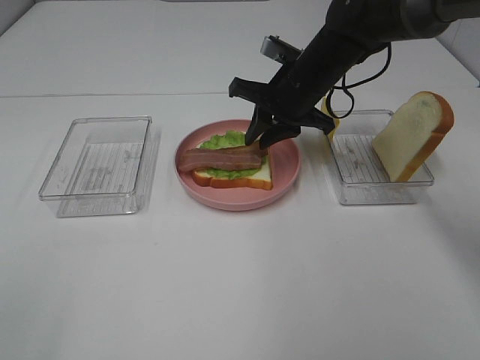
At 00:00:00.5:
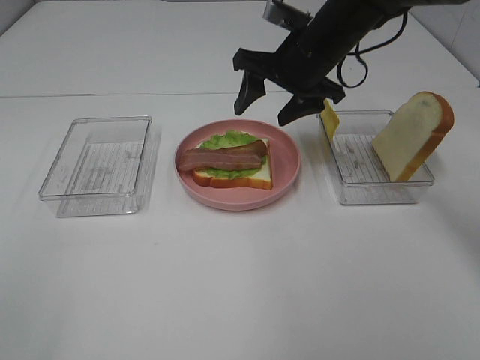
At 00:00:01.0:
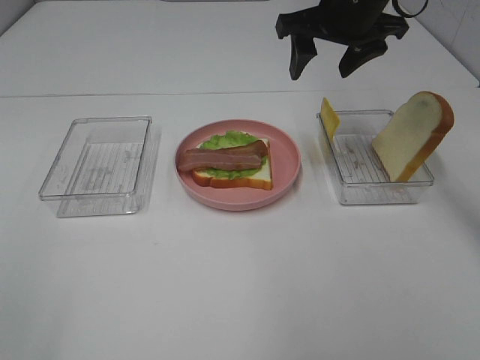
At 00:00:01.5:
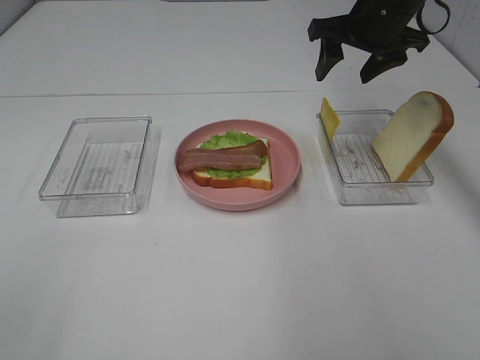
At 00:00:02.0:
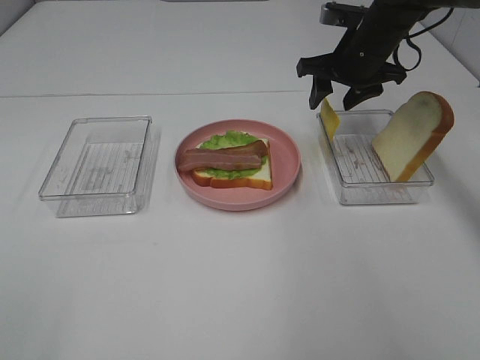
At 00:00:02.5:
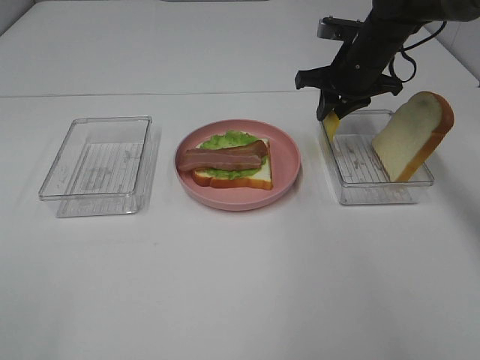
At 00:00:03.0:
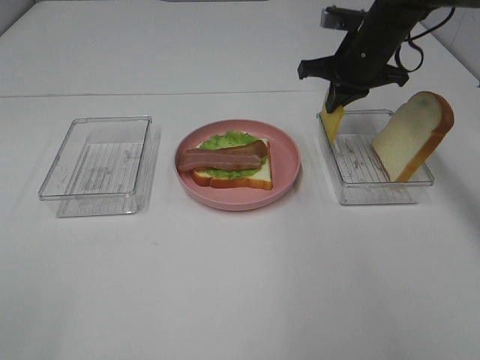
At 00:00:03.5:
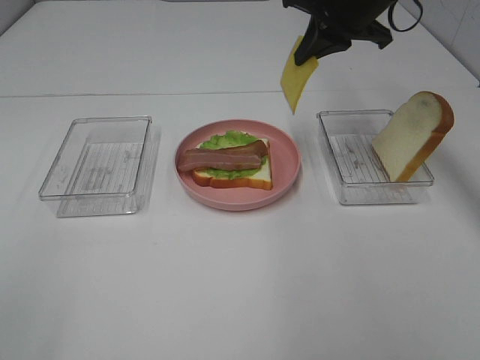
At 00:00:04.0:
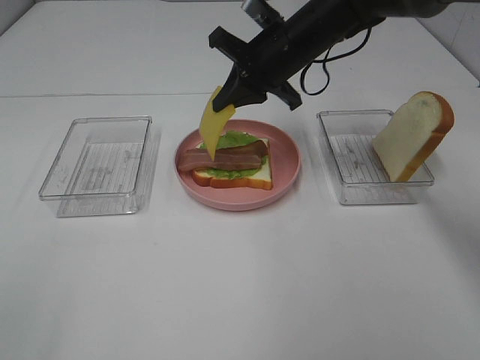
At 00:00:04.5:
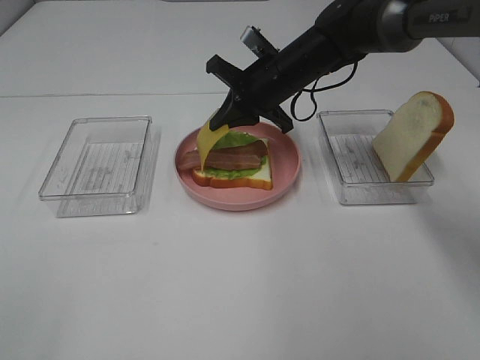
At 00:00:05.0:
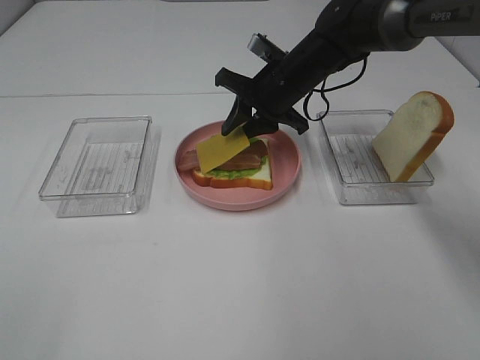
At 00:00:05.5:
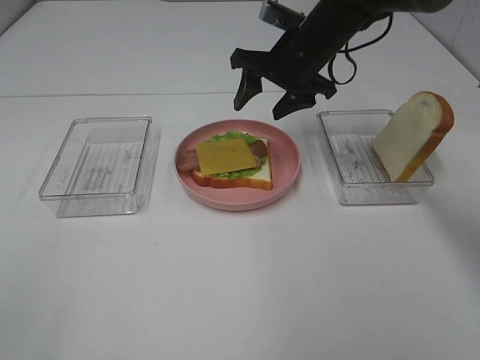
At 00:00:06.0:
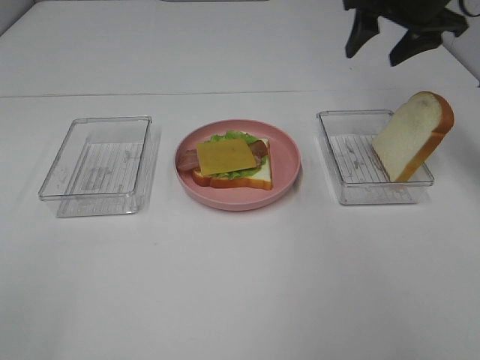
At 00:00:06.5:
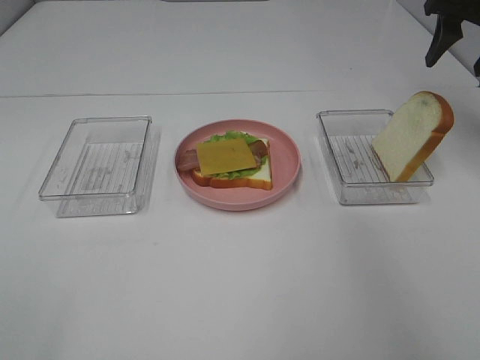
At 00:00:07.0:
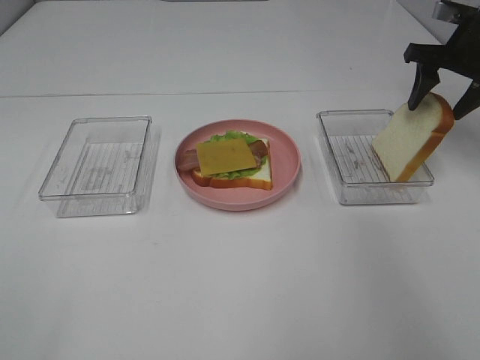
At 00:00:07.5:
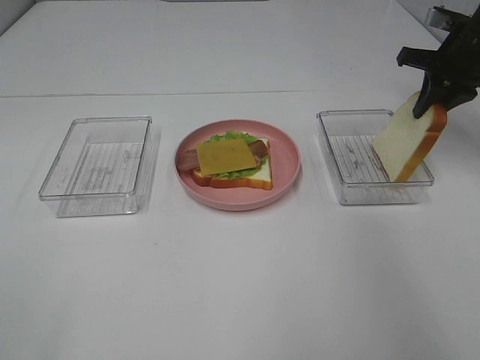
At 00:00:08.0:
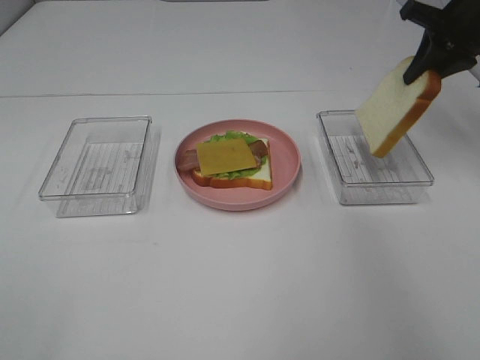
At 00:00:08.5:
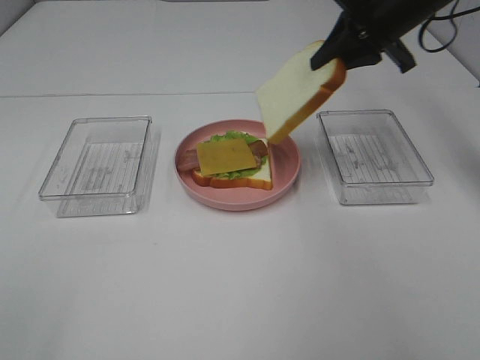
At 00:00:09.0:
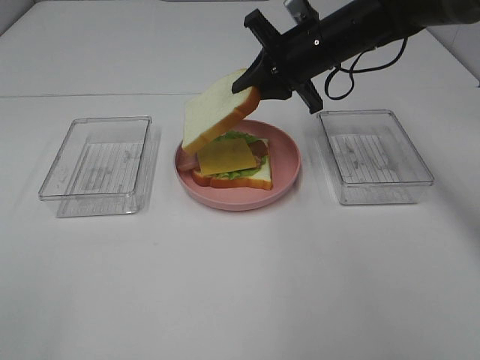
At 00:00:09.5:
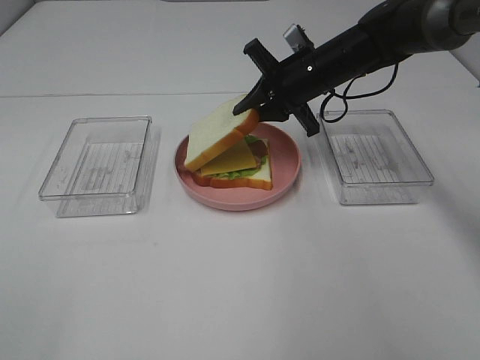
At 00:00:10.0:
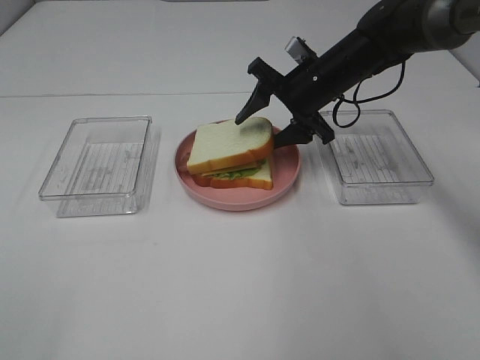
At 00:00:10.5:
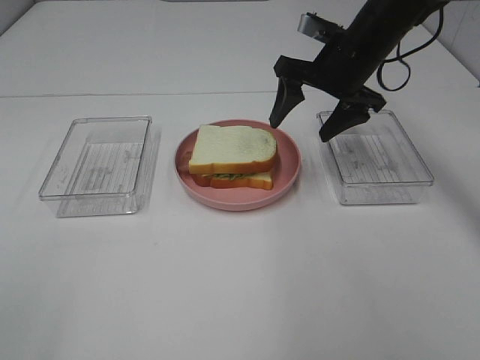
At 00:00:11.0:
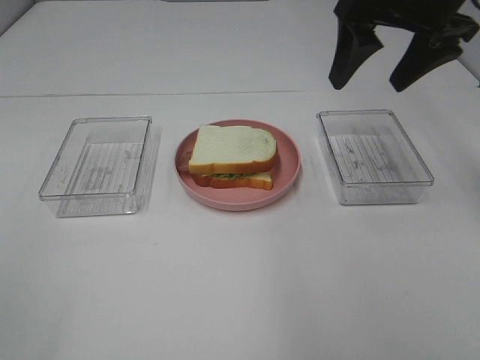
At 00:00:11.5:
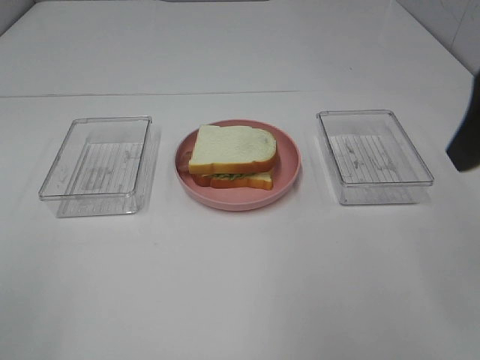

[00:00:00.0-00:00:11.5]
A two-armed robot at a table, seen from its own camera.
Task of the whole recording: Make sandwiches.
Step, 00:00:01.0 to 00:00:02.5: Right hand:grab the cheese slice.
Step, 00:00:03.0 to 00:00:05.0: Right hand:place the cheese slice on top of the bacon.
Step, 00:00:05.5 to 00:00:07.5: Right hand:grab the bread slice.
Step, 00:00:08.0 to 00:00:10.5: Right hand:place the bread slice on the cheese slice.
00:00:00.0 to 00:00:02.0: The right gripper travels to the right by approximately 10 cm, travels upward and back again, roughly 10 cm each way, and opens.
00:00:02.0 to 00:00:04.0: The right gripper is displaced to the left by approximately 10 cm, and closes.
00:00:04.0 to 00:00:06.0: The right gripper goes some 20 cm to the right and upward, and opens up.
00:00:06.0 to 00:00:07.5: The right gripper moves to the right and downward, approximately 10 cm, and closes its fingers.
00:00:07.5 to 00:00:09.5: The right gripper shifts approximately 20 cm to the left.
00:00:09.5 to 00:00:11.5: The right gripper moves backward, upward and to the right, some 35 cm, and opens up.
